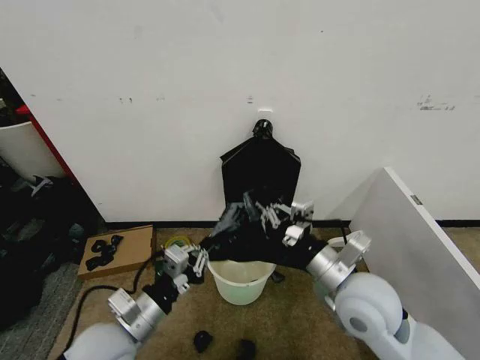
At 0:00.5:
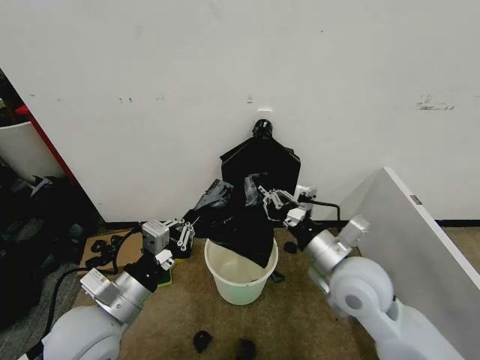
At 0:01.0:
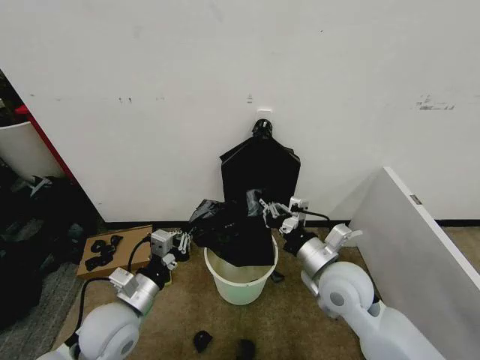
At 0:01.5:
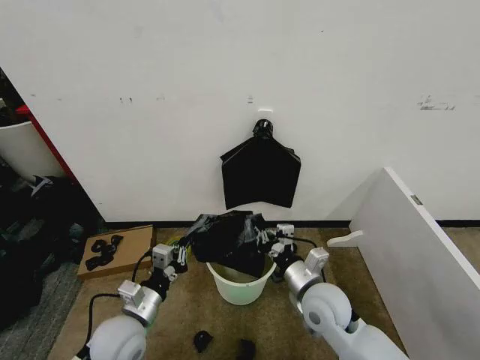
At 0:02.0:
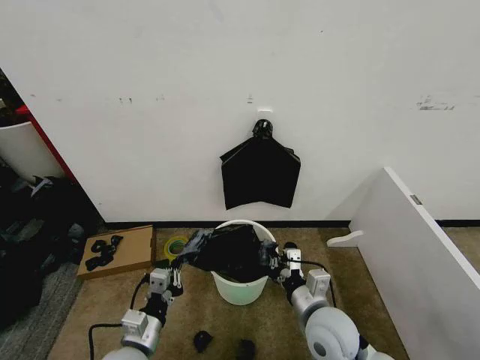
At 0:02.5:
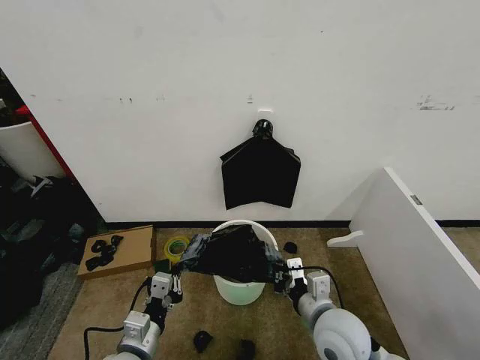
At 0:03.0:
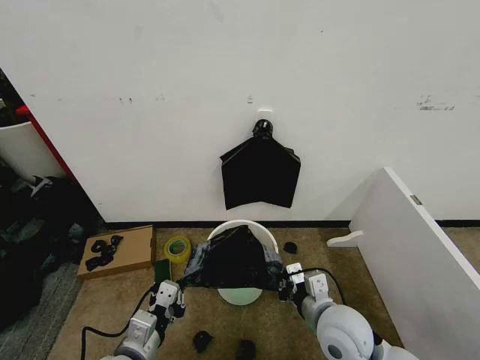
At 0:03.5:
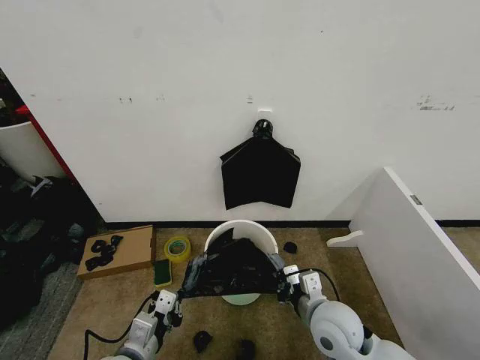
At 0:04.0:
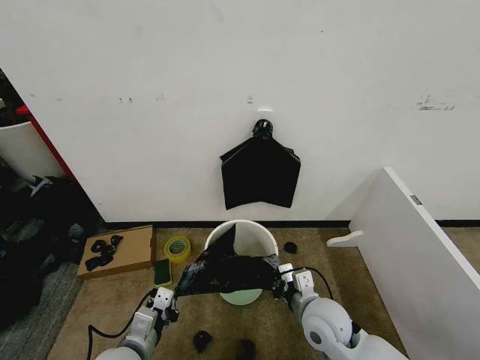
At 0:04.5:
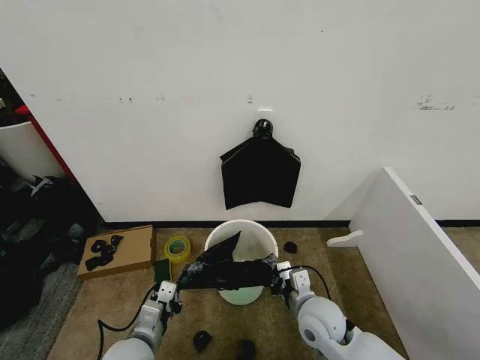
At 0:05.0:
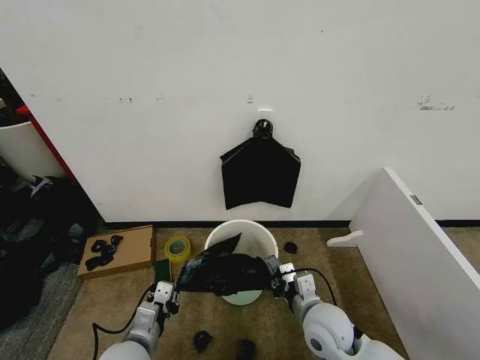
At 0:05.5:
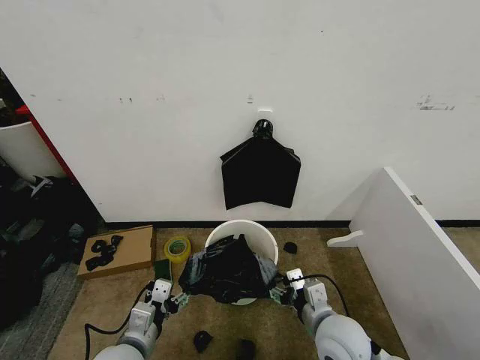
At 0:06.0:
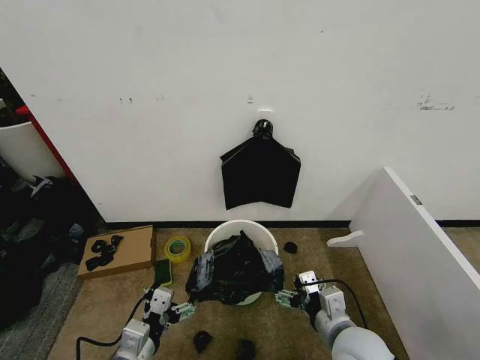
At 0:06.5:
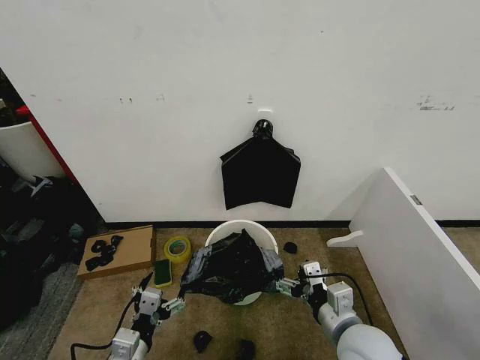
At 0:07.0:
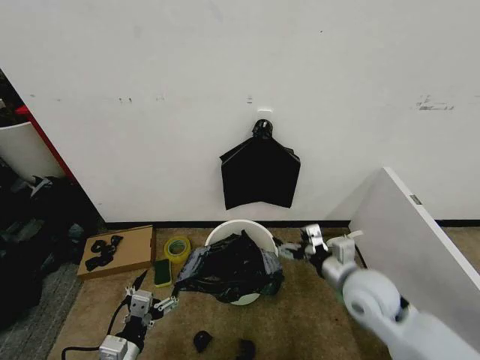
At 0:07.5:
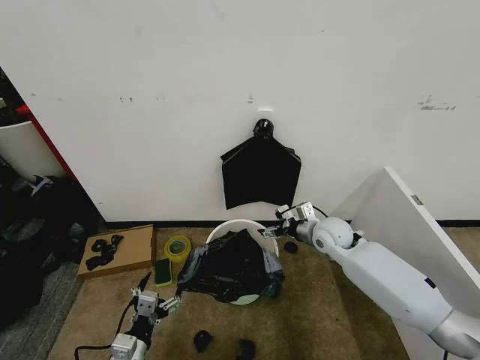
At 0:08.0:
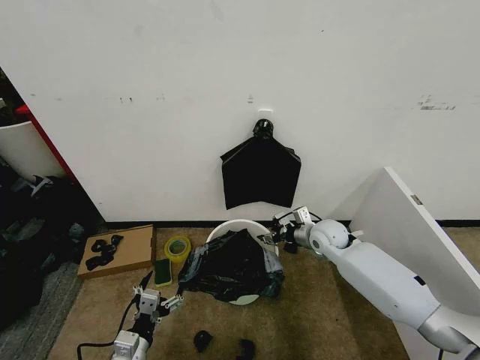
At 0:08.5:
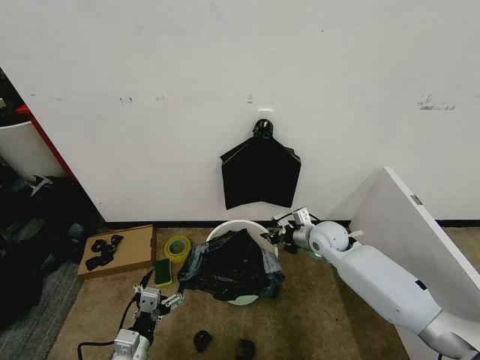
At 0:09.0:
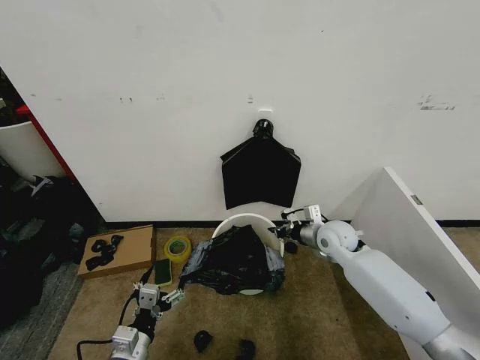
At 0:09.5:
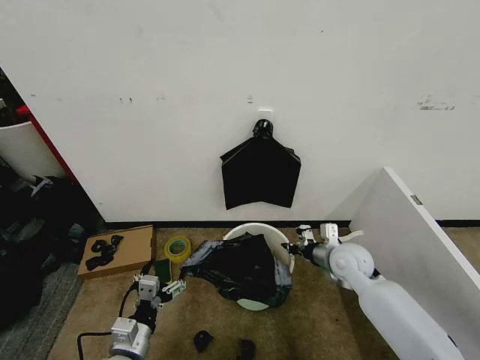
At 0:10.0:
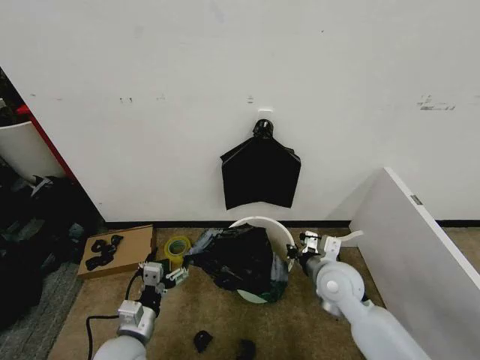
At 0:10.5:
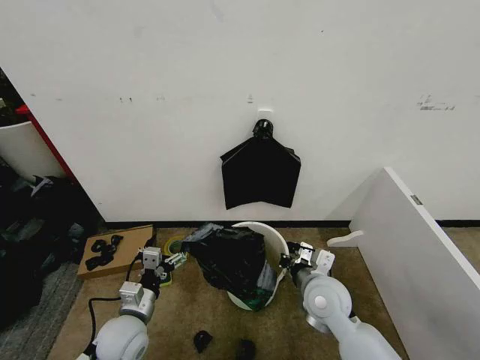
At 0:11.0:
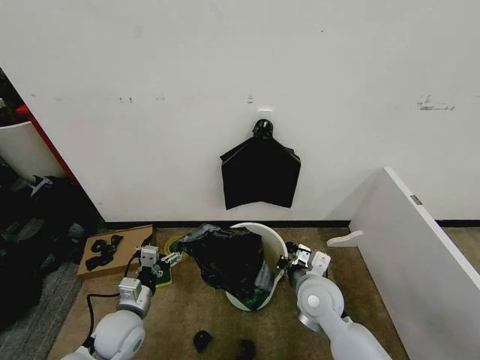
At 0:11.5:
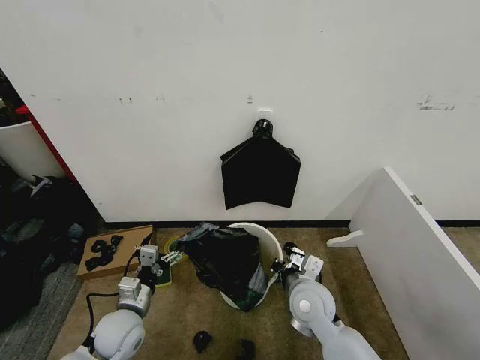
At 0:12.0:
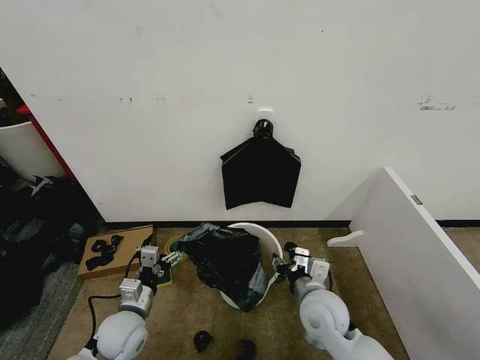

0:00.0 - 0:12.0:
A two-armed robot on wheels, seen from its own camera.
Task of the whole recording: Place the garbage bag over the trash bin.
0:00.0 - 0:02.0: Both grippers travel together downward, about 10 cm.
0:04.0 - 0:06.0: The left gripper opens up, while the right gripper shifts roughly 5 cm backward, and opens its fingers.
0:06.0 - 0:08.0: The right gripper heads forward, covering some 30 cm, while the left gripper moves downward, approximately 10 cm.
0:08.0 - 0:10.0: The right gripper is displaced backward by about 15 cm, and closes. The left gripper travels forward by about 5 cm.
0:10.0 - 0:12.0: The right gripper goes roughly 5 cm backward, and opens up. Meanwhile the left gripper goes about 5 cm forward.

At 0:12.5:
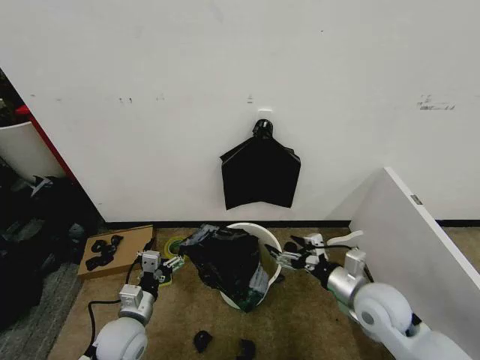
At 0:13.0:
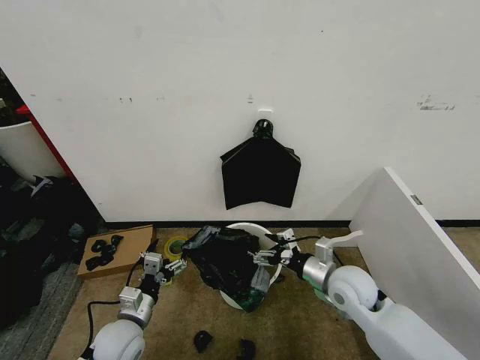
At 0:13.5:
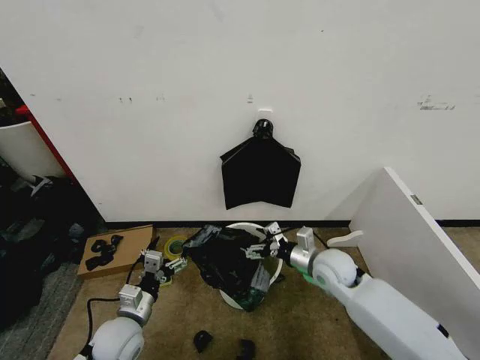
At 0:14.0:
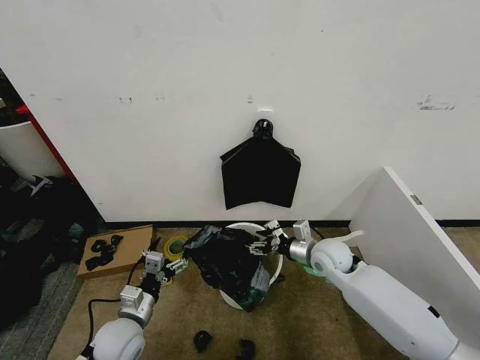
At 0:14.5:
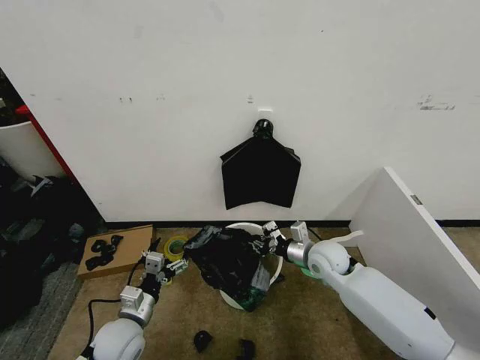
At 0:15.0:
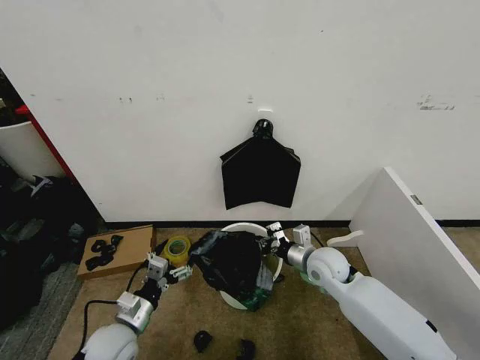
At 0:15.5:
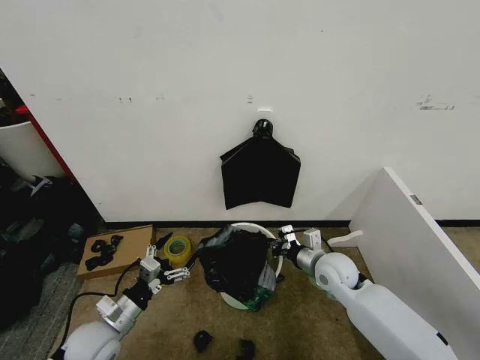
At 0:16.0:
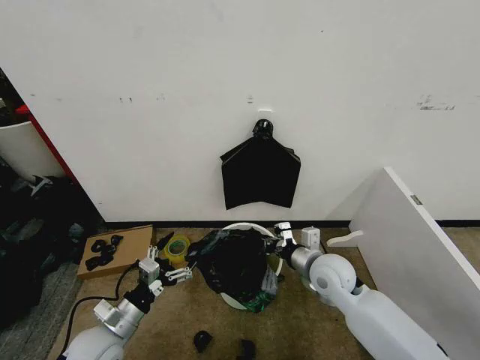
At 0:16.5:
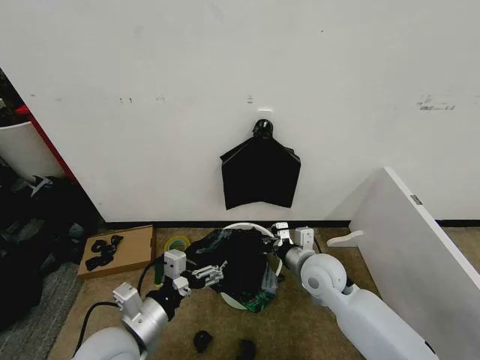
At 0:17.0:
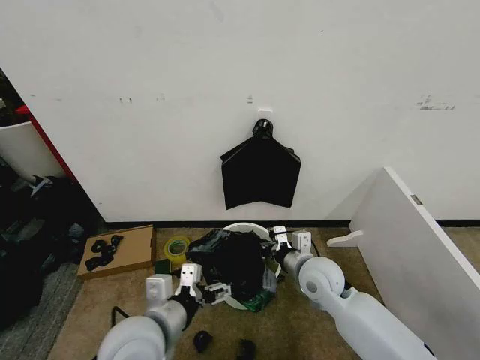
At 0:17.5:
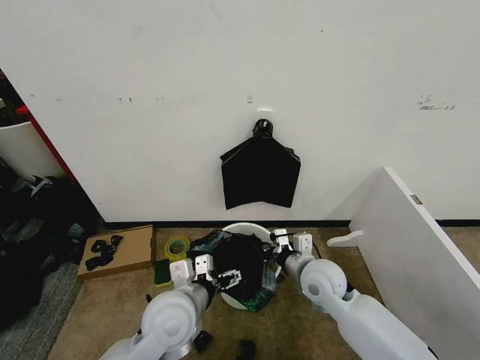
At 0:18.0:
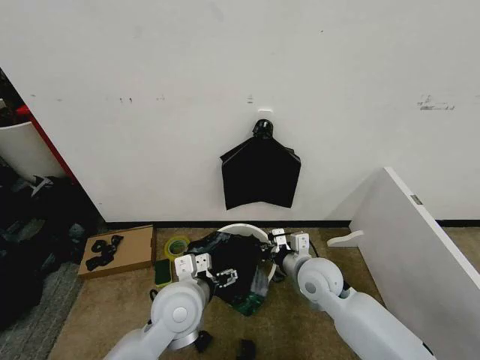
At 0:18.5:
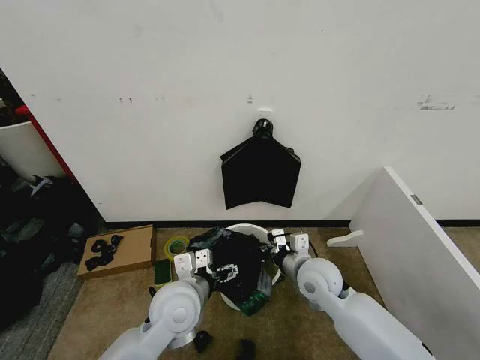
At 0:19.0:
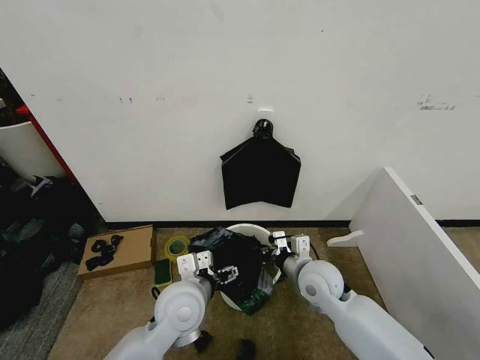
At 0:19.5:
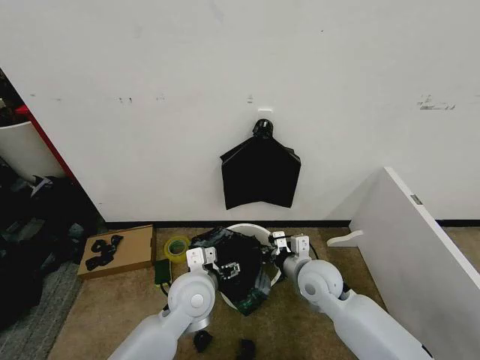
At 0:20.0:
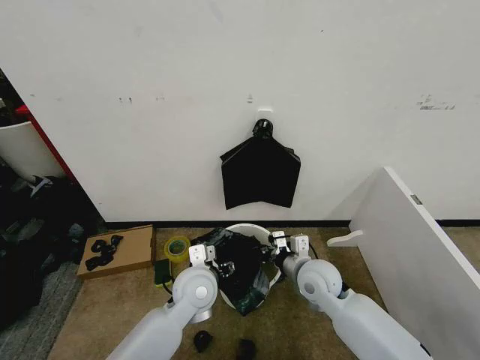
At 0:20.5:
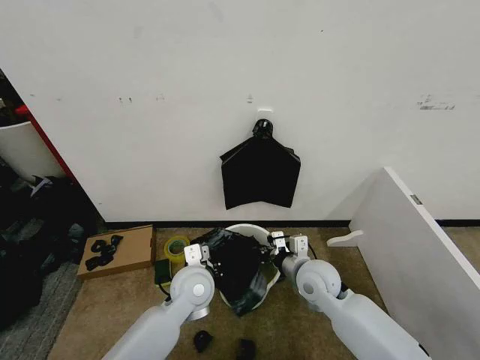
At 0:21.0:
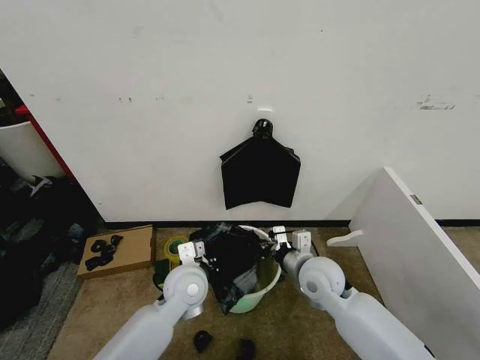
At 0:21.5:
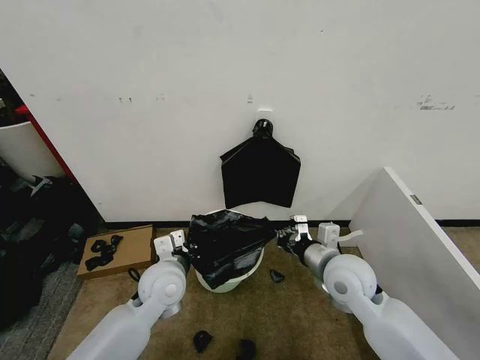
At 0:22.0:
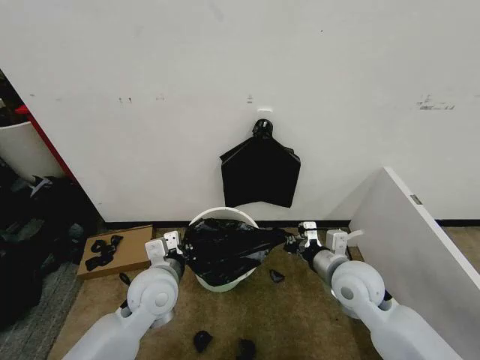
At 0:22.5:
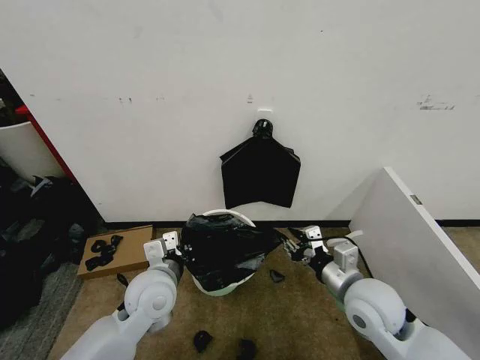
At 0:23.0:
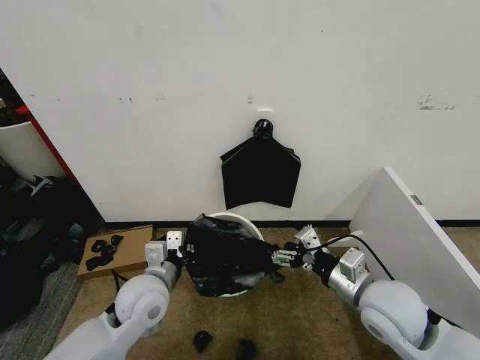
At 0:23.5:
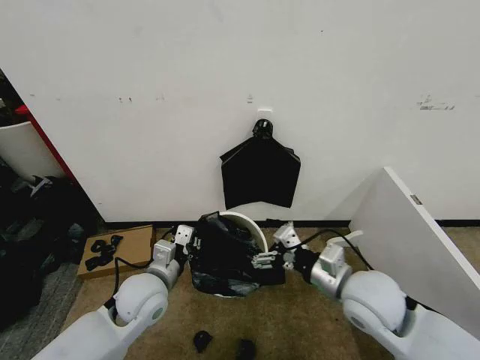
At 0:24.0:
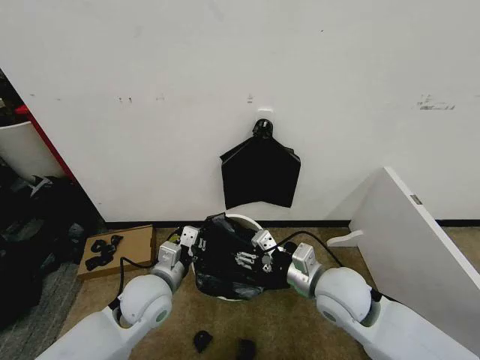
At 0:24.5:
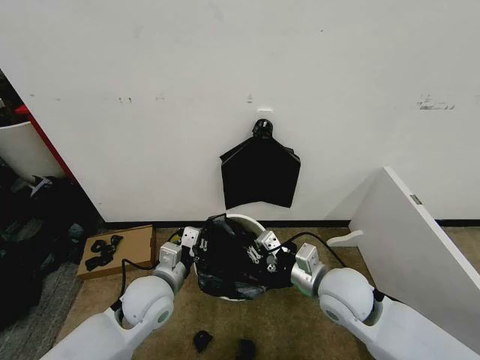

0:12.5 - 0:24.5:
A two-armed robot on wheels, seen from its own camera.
Task of the whole recording: Place the garbage bag over the trash bin.
0:12.5 - 0:14.5: The right gripper heads forward and to the left, covering roughly 15 cm, and closes its fingers.
0:14.5 - 0:16.5: The right gripper shifts roughly 5 cm backward, while the left gripper shifts some 15 cm upward.
0:16.5 - 0:18.5: The left gripper travels to the right and forward by some 10 cm.
0:18.5 - 0:20.5: The left gripper is displaced forward by roughly 5 cm, and closes up.
0:20.5 - 0:22.5: The right gripper heads backward, to the right and upward, covering roughly 10 cm. The left gripper goes approximately 5 cm to the left.
0:22.5 - 0:24.5: The right gripper ends up roughly 5 cm from where it was, and opens, then closes once more.

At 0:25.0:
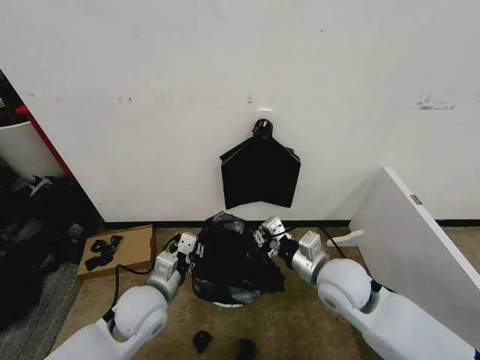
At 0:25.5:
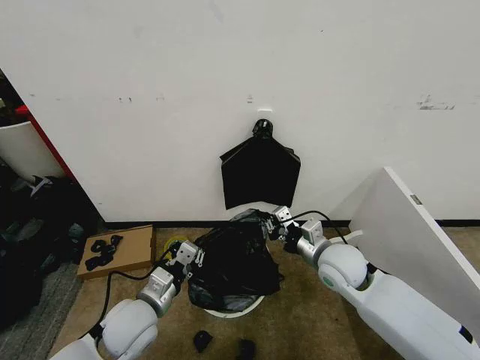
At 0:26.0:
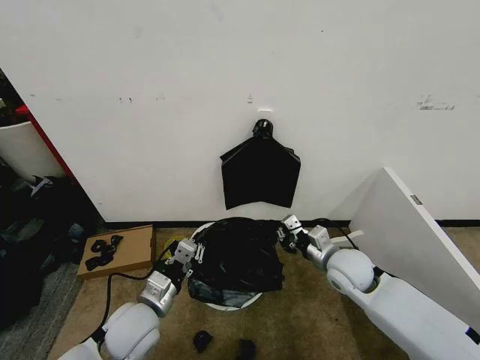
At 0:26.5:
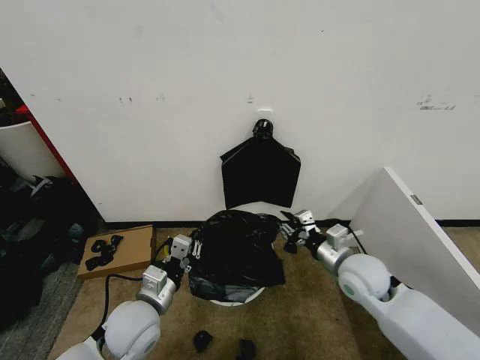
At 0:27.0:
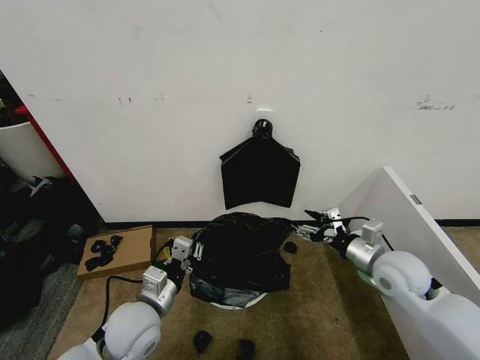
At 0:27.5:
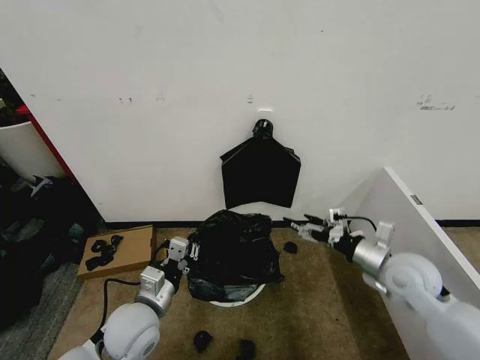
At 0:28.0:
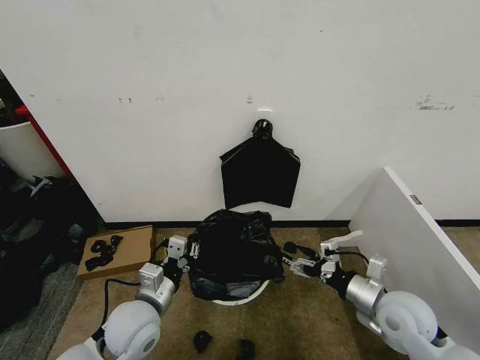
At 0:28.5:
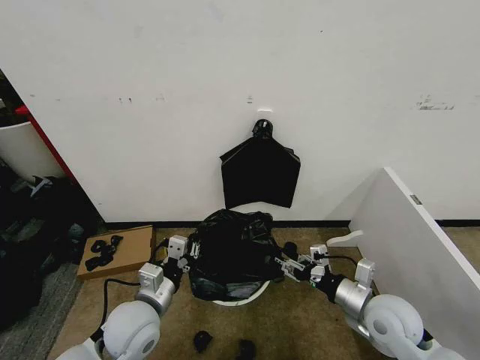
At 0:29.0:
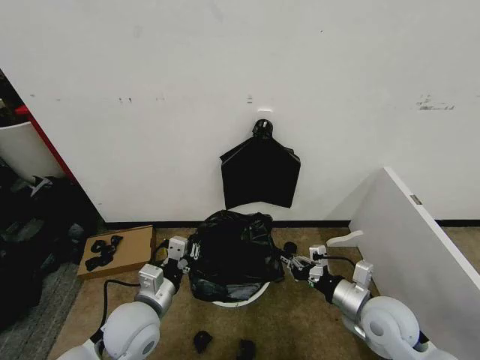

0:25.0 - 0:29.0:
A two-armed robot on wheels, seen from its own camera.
Task of the whole recording: Place the garbage bag over the trash bin.
0:25.0 - 0:27.0: The right gripper moves to the right, some 15 cm, and opens up.
0:27.0 - 0:29.0: The right gripper shifts roughly 10 cm backward, and closes its fingers.
